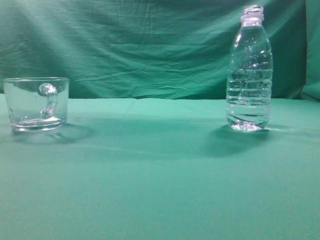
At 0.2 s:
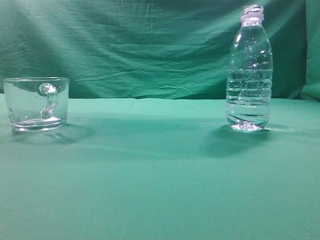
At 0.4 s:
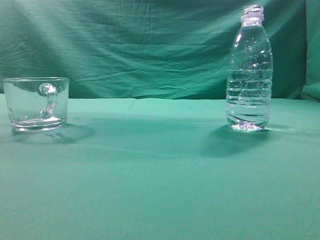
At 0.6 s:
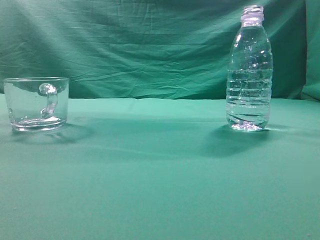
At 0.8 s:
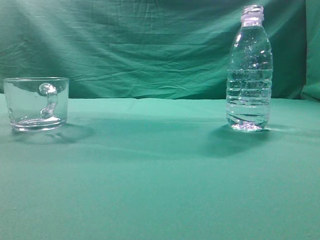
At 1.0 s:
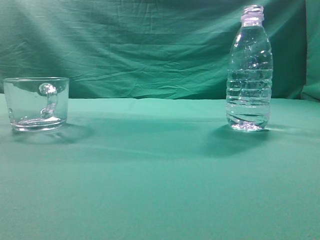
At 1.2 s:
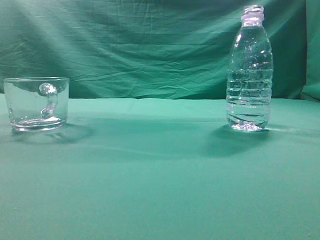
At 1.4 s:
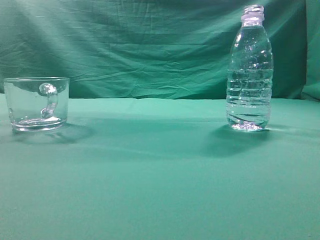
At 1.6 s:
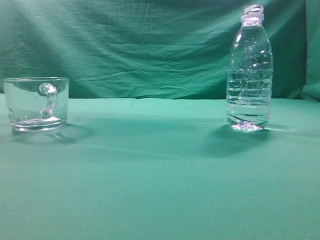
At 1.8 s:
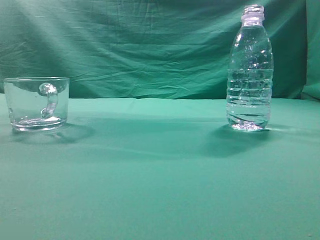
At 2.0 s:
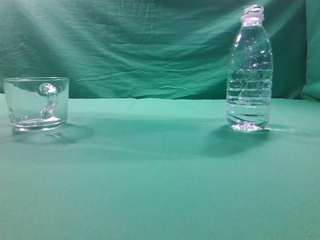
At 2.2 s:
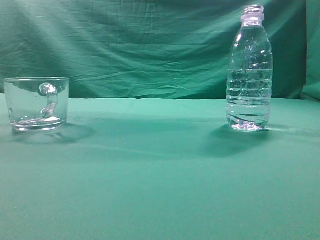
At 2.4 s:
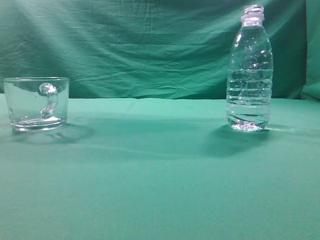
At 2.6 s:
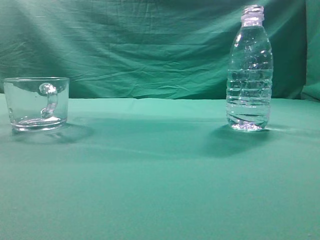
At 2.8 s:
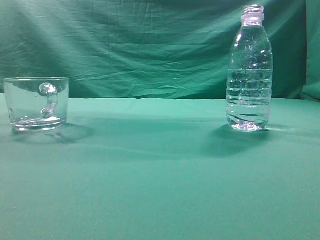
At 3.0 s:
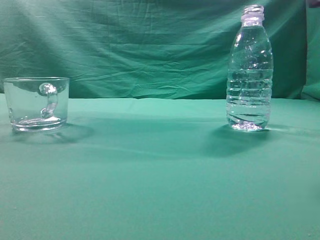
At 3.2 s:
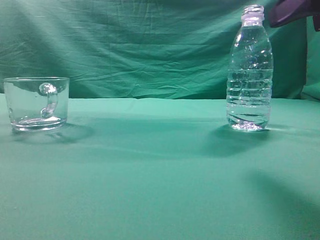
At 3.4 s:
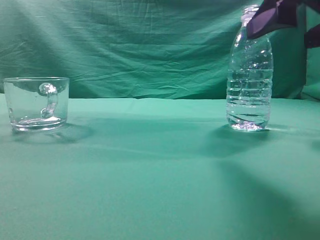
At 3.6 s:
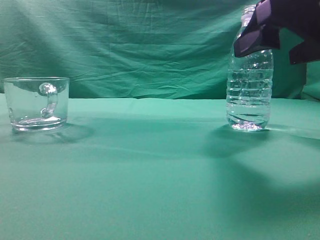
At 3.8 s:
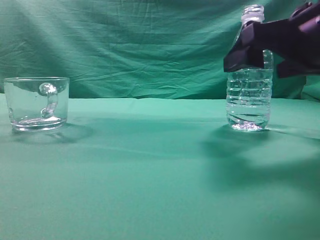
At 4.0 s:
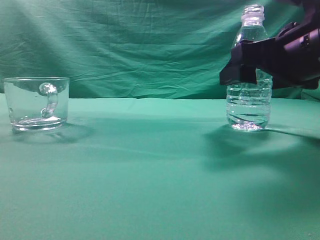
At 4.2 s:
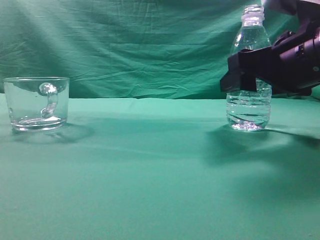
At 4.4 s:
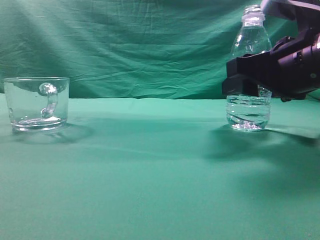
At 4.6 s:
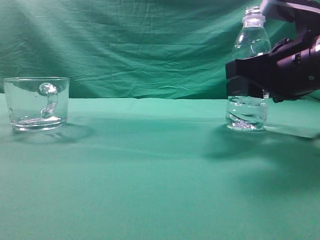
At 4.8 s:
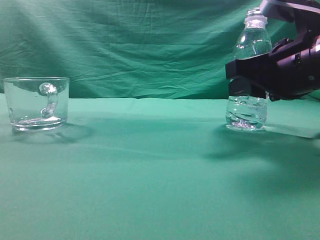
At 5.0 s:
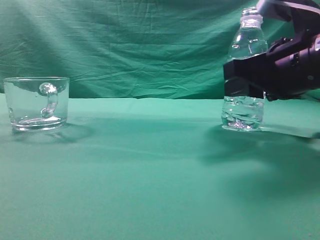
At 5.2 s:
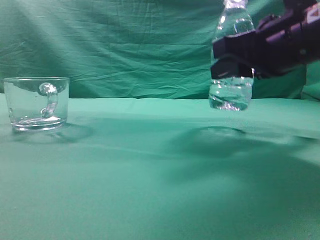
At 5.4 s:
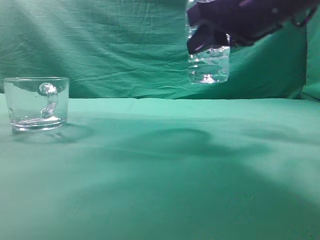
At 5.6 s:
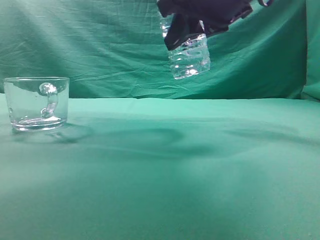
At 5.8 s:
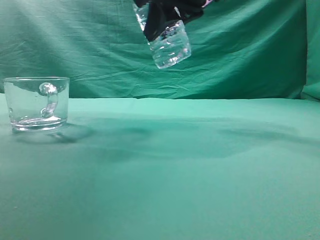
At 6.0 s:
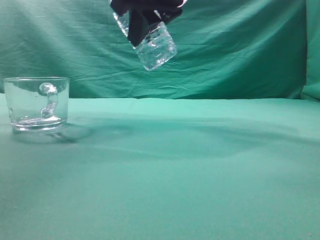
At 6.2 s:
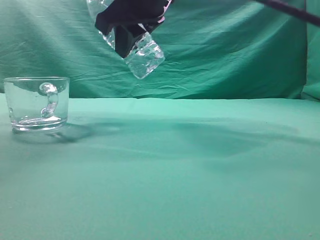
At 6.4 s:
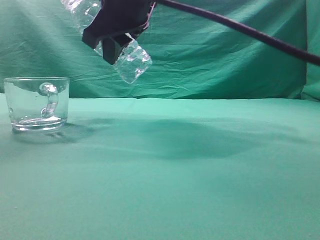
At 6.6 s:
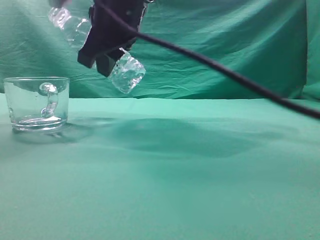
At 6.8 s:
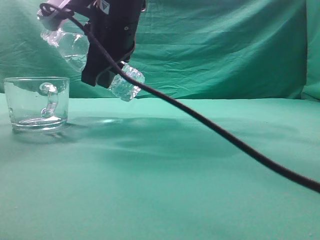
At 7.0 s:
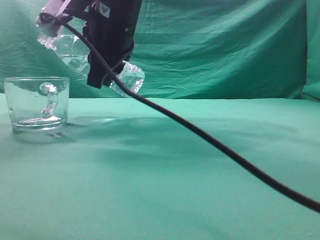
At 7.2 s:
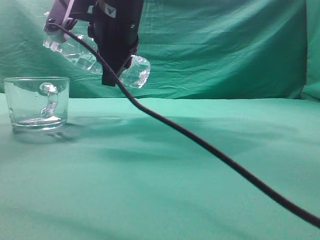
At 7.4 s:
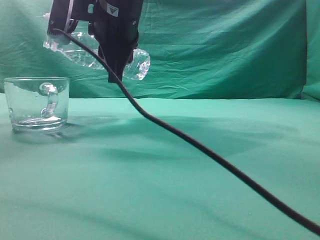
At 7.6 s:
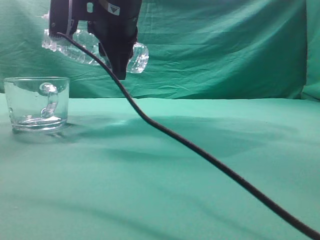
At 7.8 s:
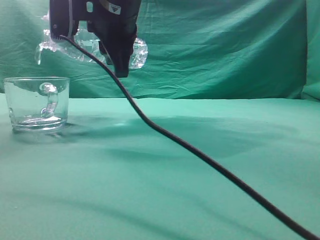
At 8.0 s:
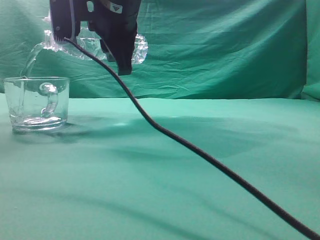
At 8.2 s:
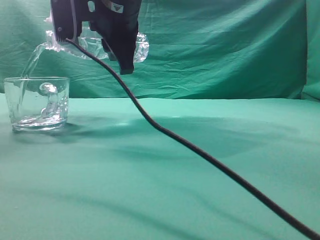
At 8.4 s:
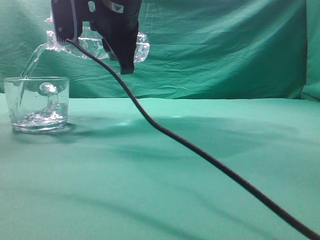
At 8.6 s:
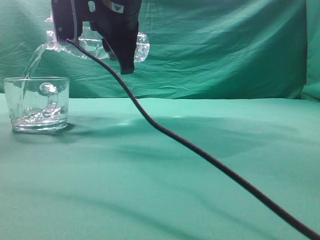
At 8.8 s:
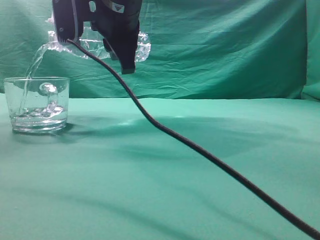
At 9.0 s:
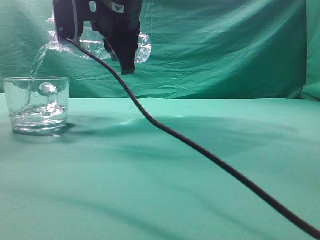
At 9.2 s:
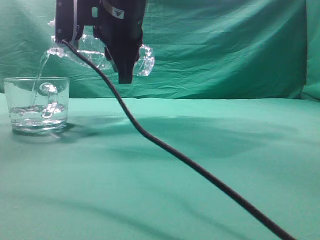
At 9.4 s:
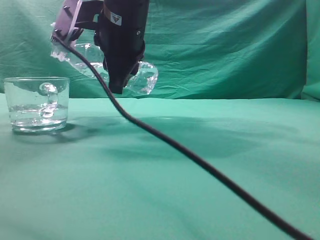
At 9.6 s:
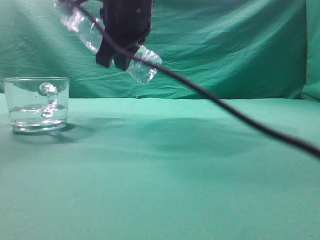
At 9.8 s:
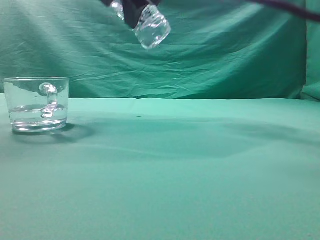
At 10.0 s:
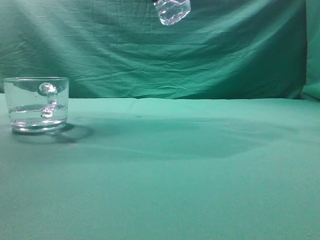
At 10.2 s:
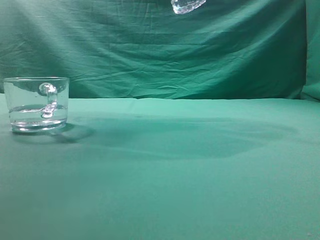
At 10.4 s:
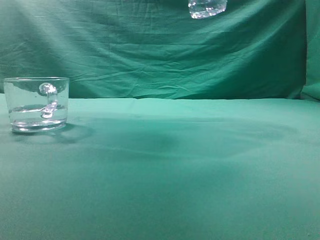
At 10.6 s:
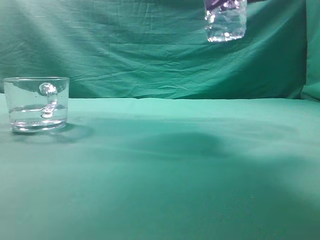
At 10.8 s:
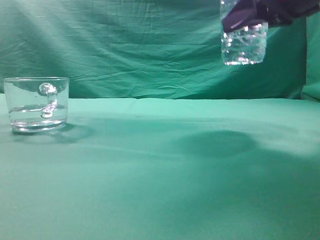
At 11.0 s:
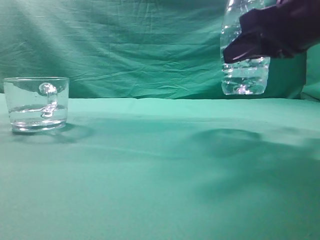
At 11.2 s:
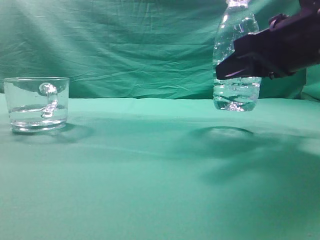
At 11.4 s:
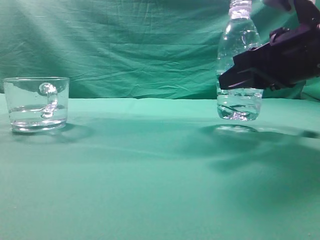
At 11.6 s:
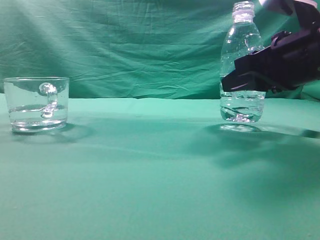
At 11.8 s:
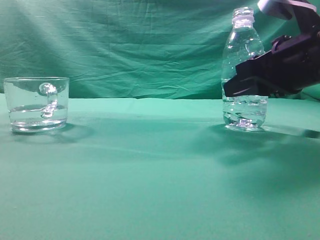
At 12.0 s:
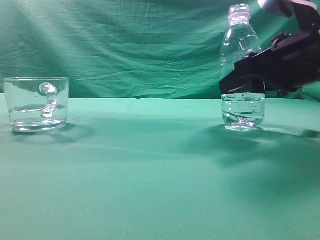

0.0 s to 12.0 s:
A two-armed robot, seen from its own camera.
Task of the whole recording: pick up the water bottle and pour the water in it into the glass.
Step, 0.0 to 5.2 s: Grasp the mineral water bottle.
Step, 5.4 to 9.6 s: Pour water into the teacup.
3.0 to 4.4 s: The right gripper moves forward and downward, roughly 15 cm, and opens its fingers.
4.4 to 6.0 s: The right gripper moves to the left and upward, approximately 20 cm.
6.0 to 7.6 s: The right gripper heads to the left, covering roughly 10 cm.
7.6 to 9.0 s: The grippers stay close to where they were, moving slightly.
9.0 to 10.4 s: The right gripper shifts some 20 cm to the right and upward.
10.4 to 12.0 s: The right gripper goes some 15 cm downward.

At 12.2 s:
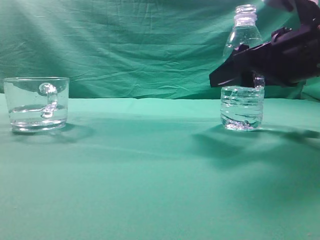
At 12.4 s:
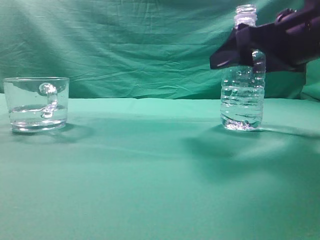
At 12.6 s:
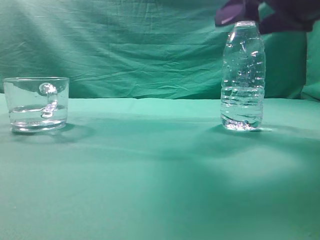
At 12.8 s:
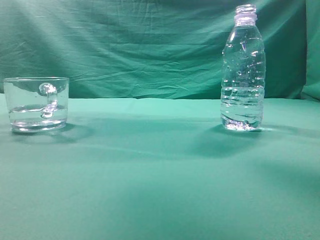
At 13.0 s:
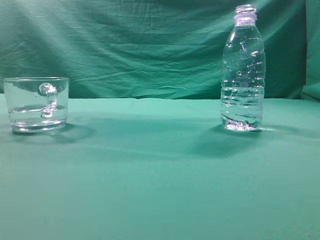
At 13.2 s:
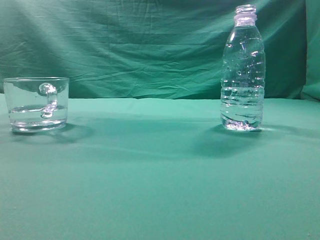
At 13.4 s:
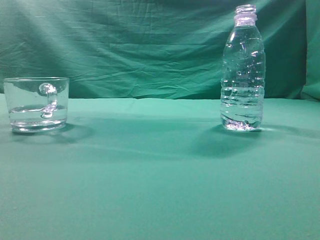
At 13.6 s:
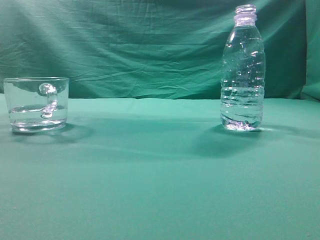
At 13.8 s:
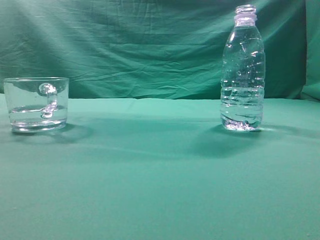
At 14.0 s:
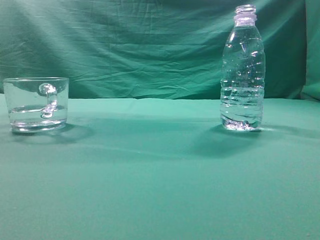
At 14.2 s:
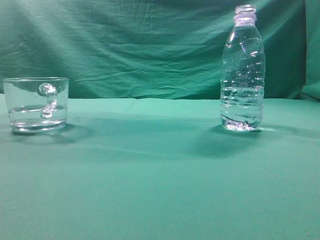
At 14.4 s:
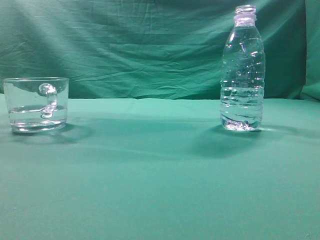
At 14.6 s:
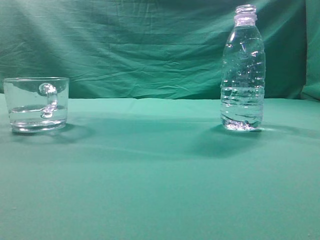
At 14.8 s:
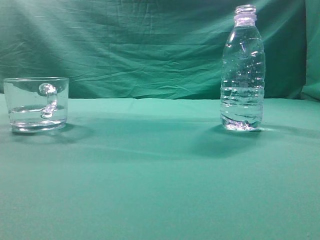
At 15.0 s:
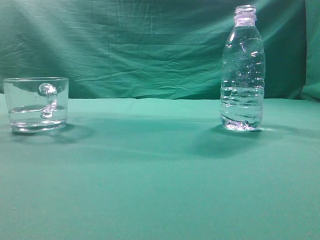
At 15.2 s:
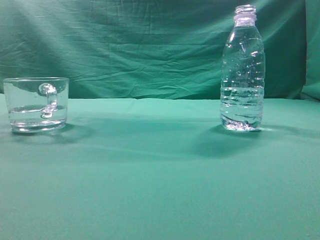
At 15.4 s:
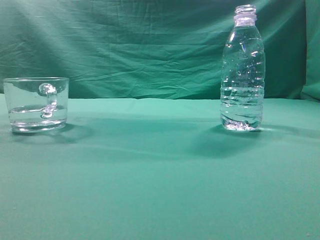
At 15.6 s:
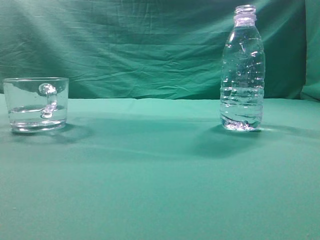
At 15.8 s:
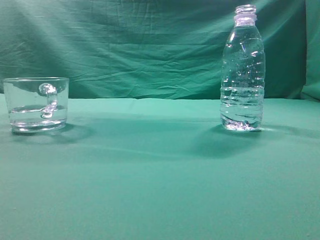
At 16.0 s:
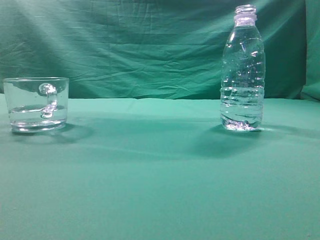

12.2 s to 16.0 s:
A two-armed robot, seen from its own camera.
Task of the whole recording: pick up the water bottle and pour the water in it into the glass.
12.2 to 13.4 s: The right gripper moves upward and backward, some 30 cm, and closes.
